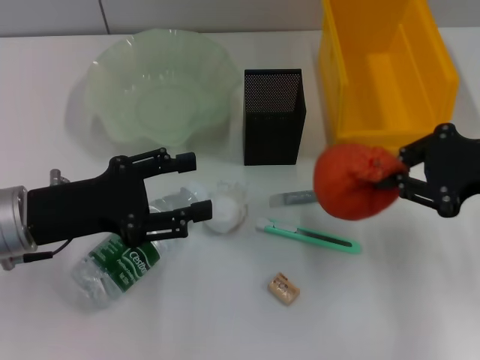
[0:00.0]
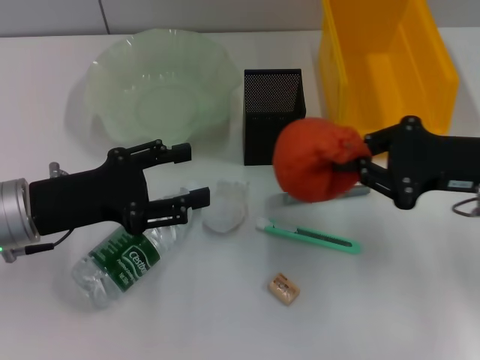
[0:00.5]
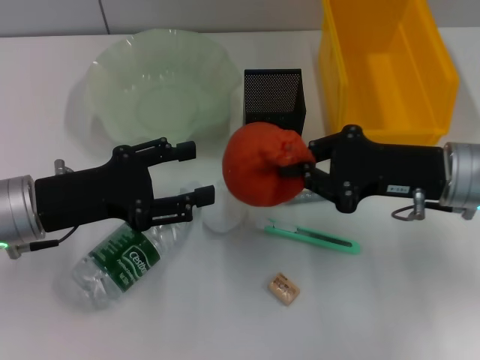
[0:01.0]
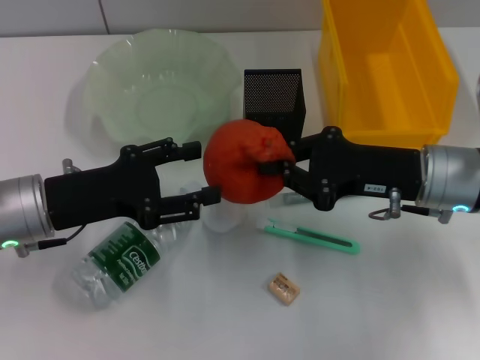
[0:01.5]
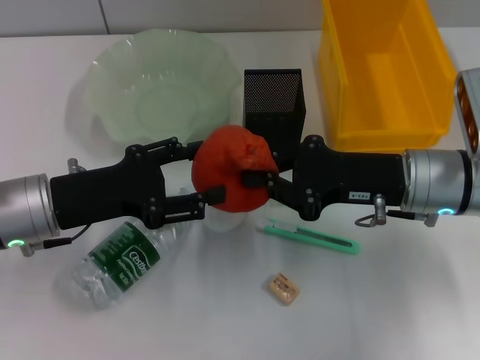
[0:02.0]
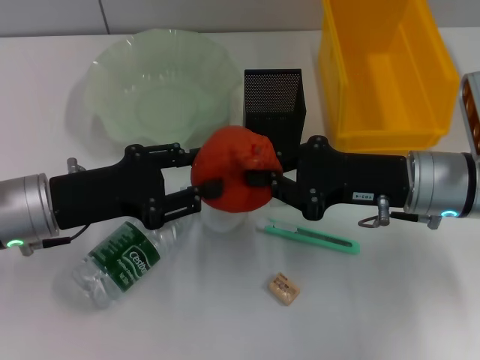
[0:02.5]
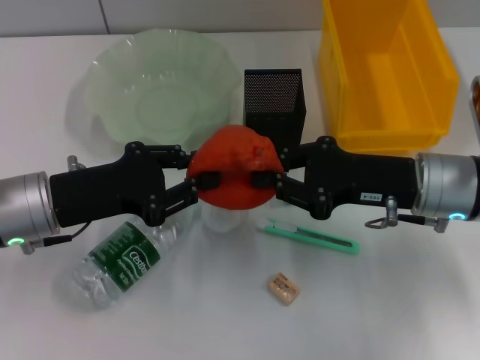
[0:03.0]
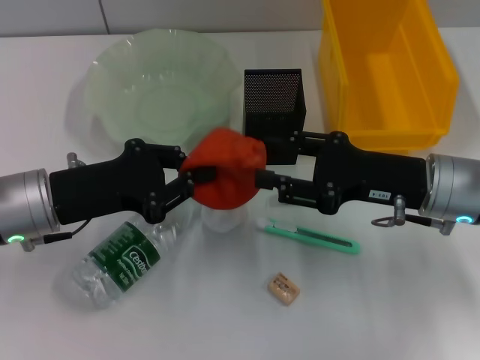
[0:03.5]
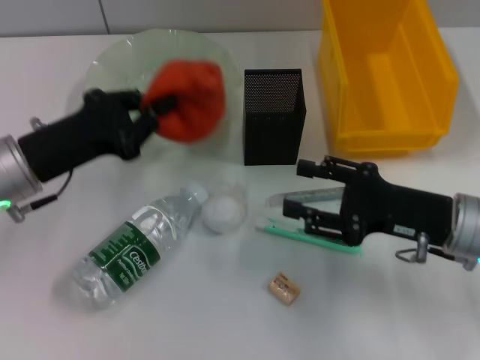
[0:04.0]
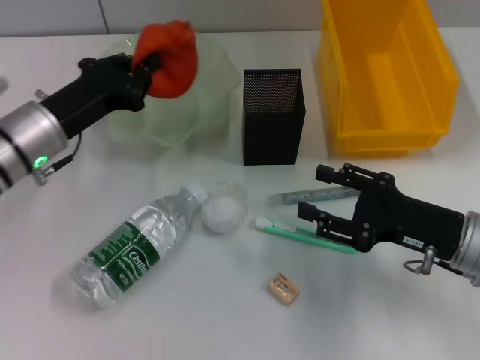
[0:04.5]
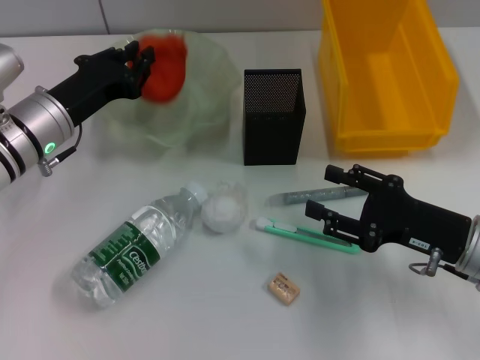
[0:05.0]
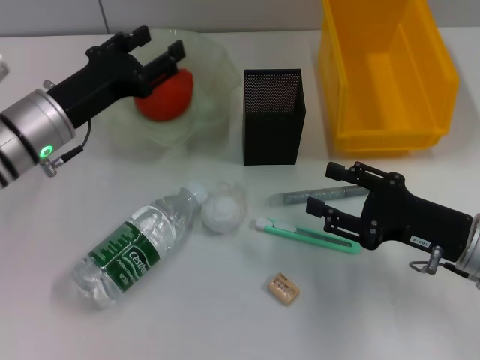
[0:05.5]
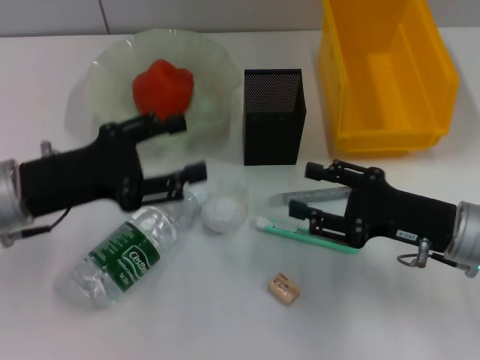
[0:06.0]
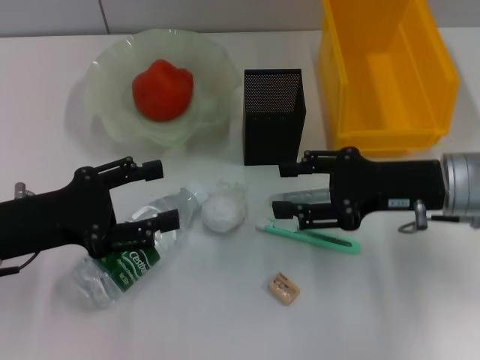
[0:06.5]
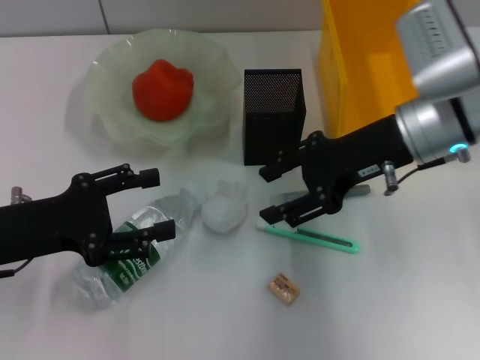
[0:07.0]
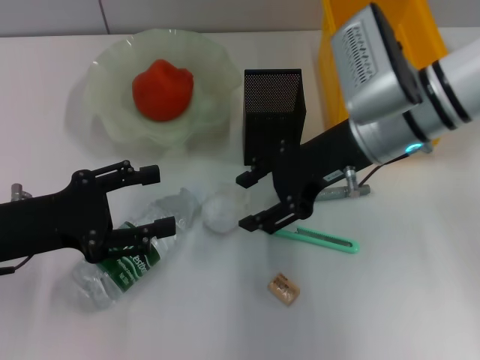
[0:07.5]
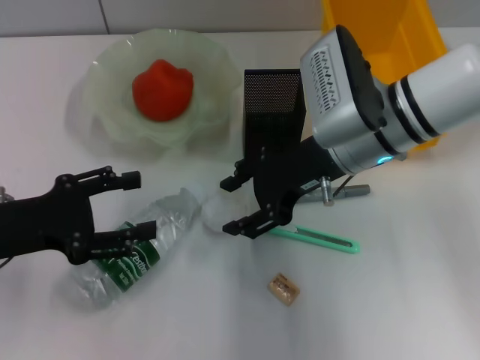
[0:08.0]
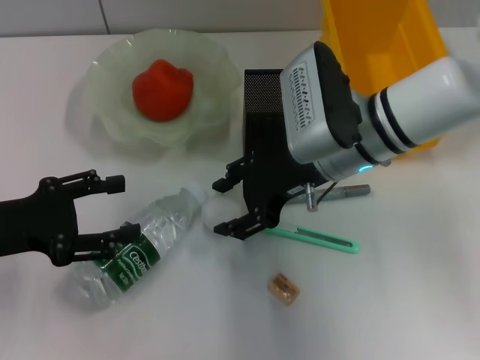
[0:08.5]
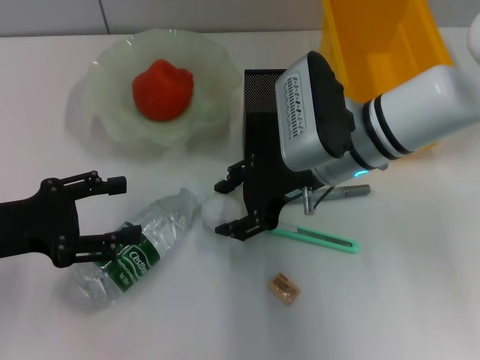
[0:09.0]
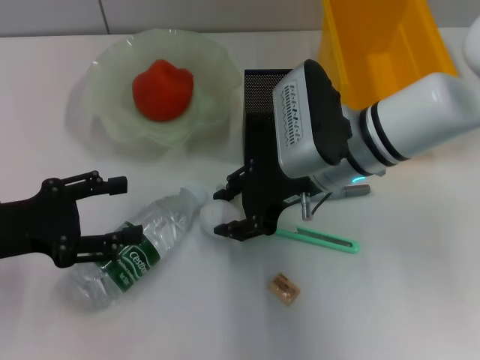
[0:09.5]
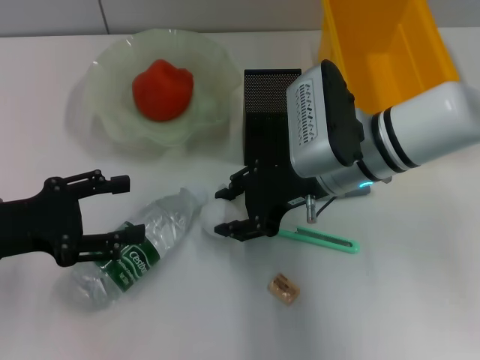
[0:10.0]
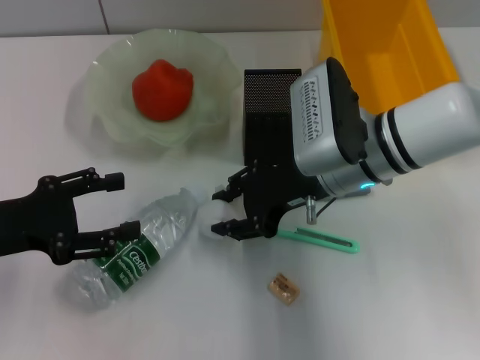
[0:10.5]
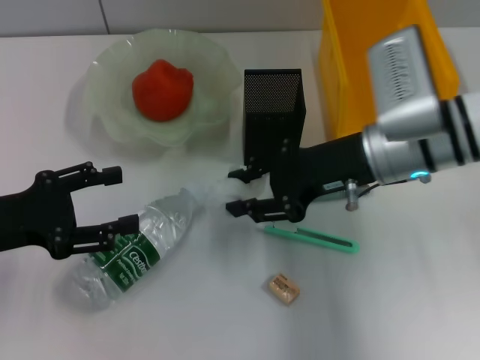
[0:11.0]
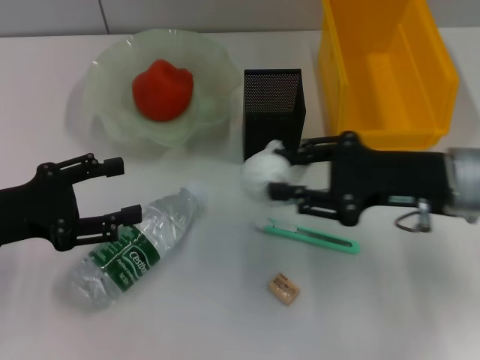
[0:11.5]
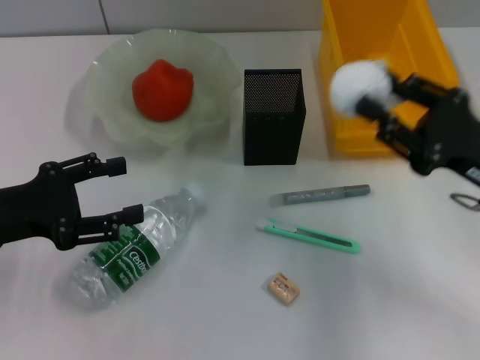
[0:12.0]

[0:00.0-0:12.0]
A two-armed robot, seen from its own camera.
Step, 0:00.0 to 0:03.5: Pass the orange from the right hand to the left hand.
Step, 0:04.0 to 0:05.0: Place the orange into the fruit bowl with the left hand.
Step, 0:05.5 to 0:10.0: Grab the paper ball with the right hand.
0:00.0 to 0:02.0: The right gripper shifts approximately 10 cm to the left and downward.
0:02.0 to 0:04.0: The left gripper closes up; the right gripper moves approximately 5 cm, and opens.
0:04.0 to 0:06.0: The left gripper goes forward and returns, roughly 5 cm each way, and opens its fingers.
0:06.0 to 0:08.0: The right gripper travels to the left, forward and upward by approximately 15 cm. The left gripper ends up approximately 5 cm from where it was.
0:08.0 to 0:10.0: The grippers move only a little.
0:10.0 to 0:12.0: The right gripper is displaced to the right and backward by roughly 20 cm.

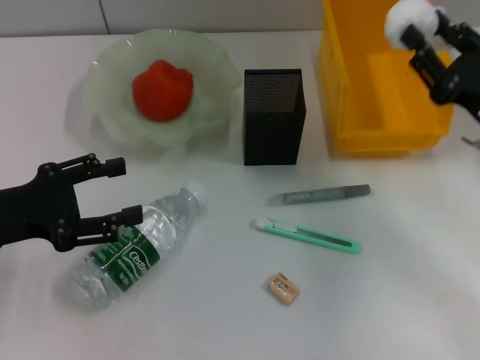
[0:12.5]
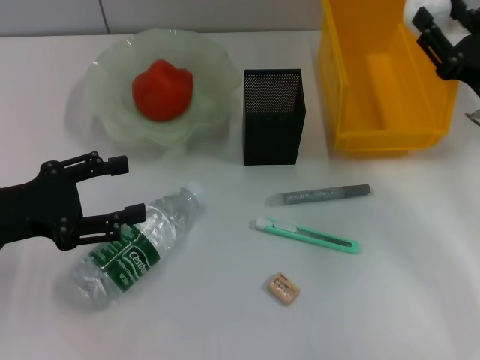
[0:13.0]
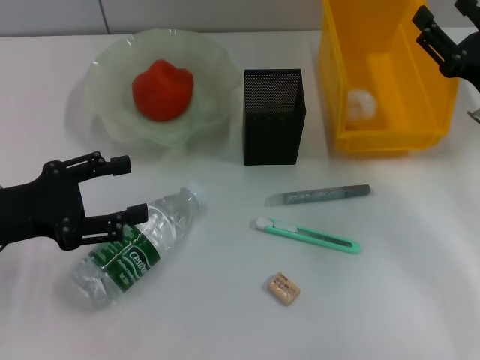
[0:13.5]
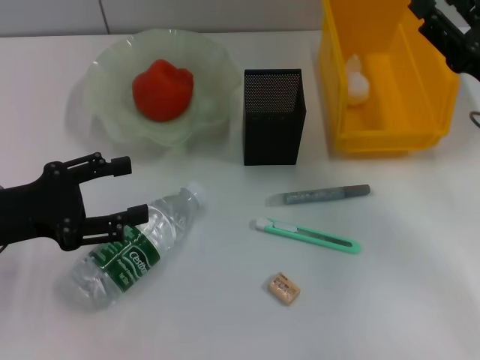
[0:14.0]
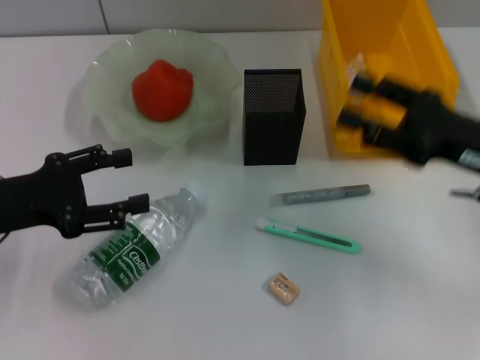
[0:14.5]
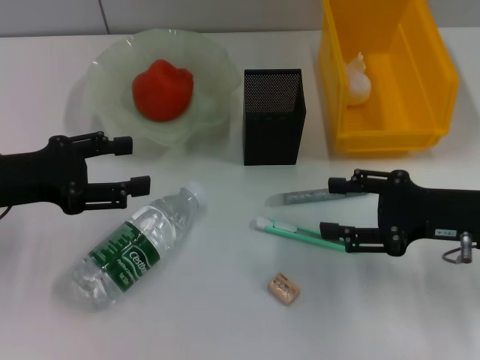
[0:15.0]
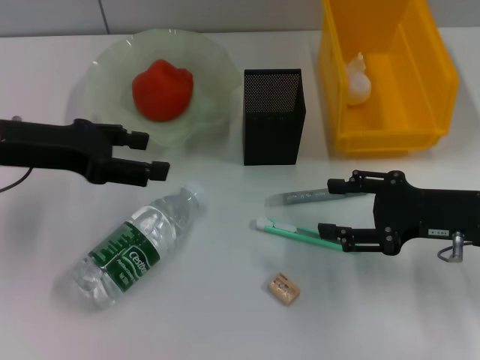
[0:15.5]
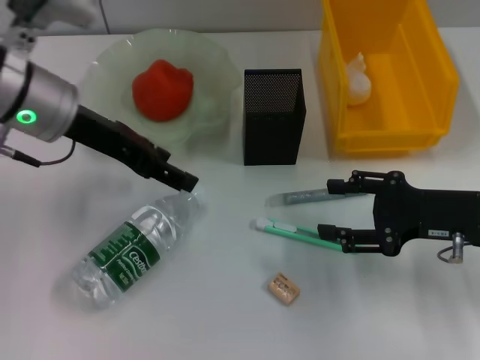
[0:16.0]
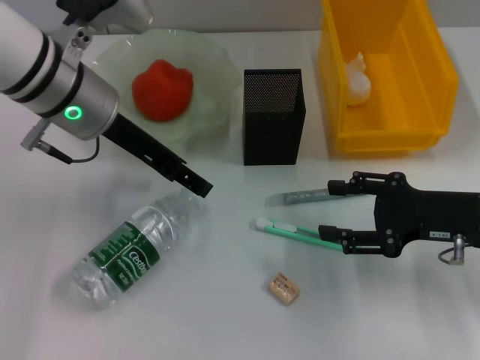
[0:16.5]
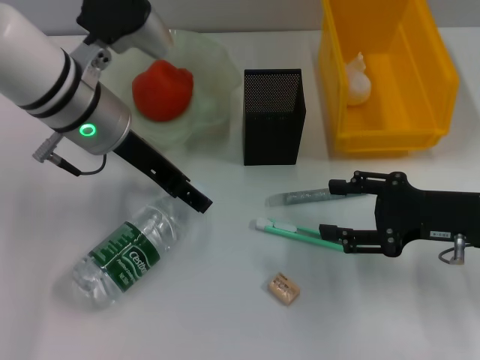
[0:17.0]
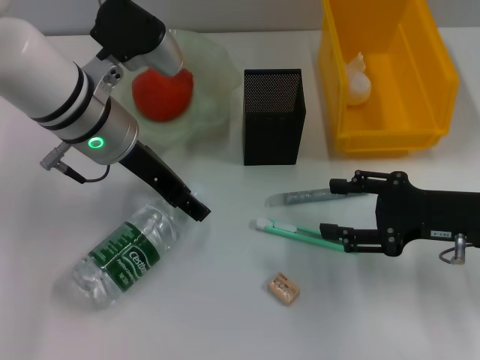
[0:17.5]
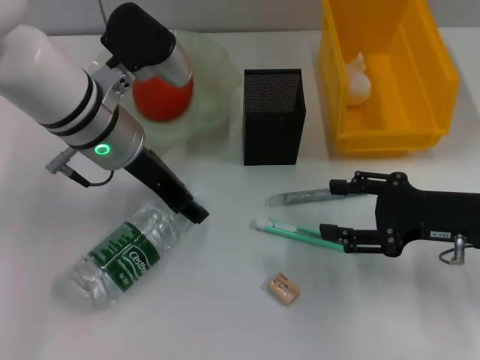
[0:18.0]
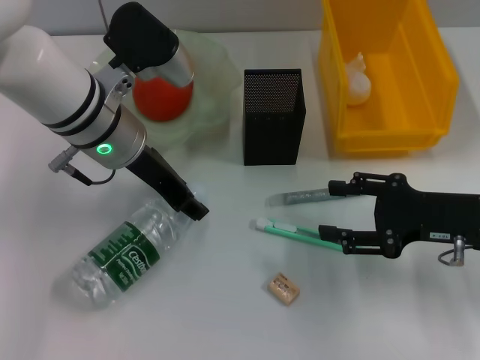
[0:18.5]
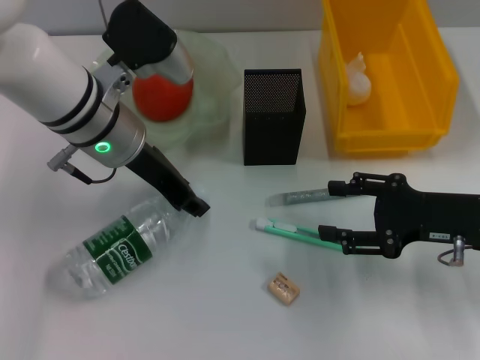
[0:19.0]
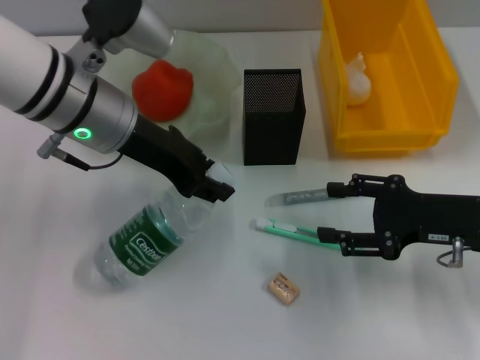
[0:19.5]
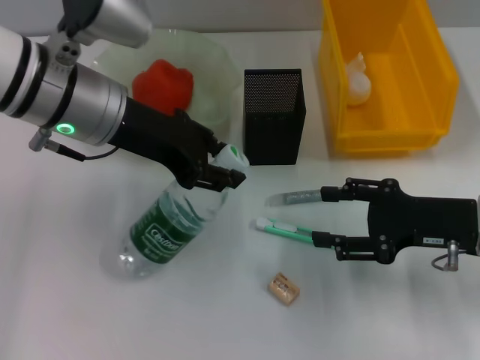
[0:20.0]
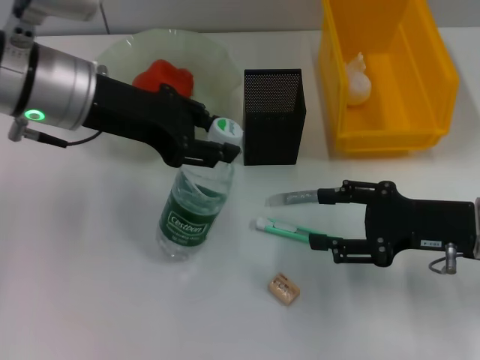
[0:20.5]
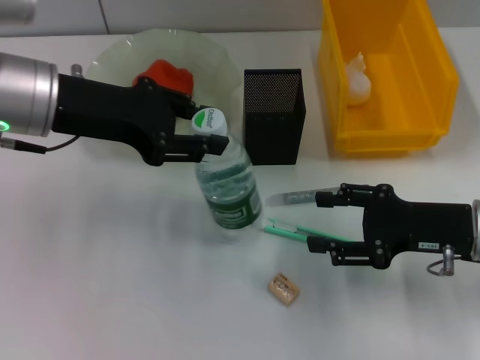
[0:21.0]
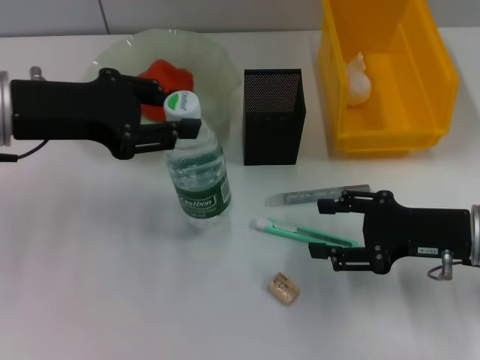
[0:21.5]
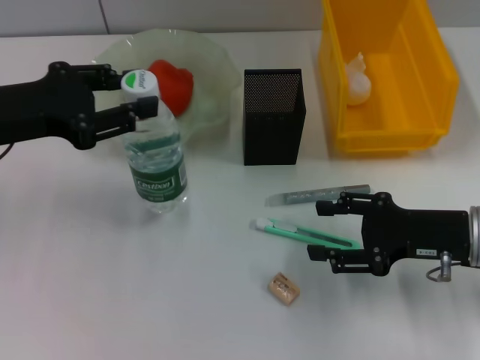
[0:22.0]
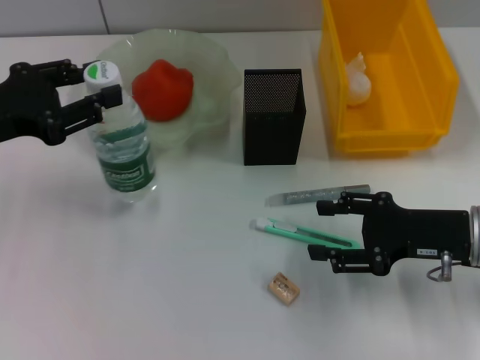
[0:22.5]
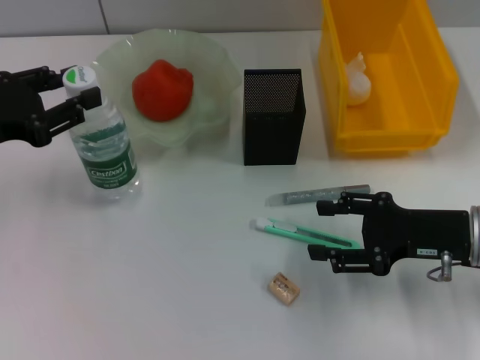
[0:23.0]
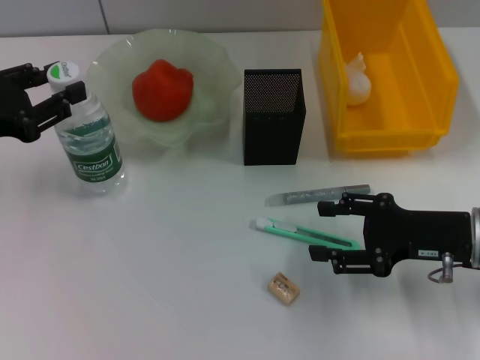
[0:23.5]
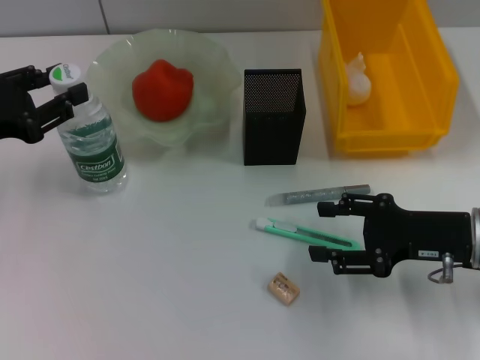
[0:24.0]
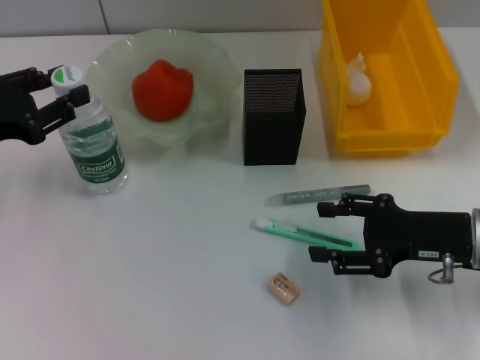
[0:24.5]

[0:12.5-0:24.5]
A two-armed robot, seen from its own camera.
Step, 0:14.0 to 0:18.5: Grab the water bottle with the left hand.
0:12.5 to 0:14.5: The right gripper opens.
0:14.5 to 0:16.5: The left gripper heads to the right, forward and upward, covering approximately 20 cm.
0:16.5 to 0:18.5: There are only small adjustments of the grippers.
0:18.5 to 0:20.5: The left gripper goes roughly 5 cm upward.
0:20.5 to 0:22.5: The left gripper goes some 10 cm to the left.
0:22.5 to 0:24.5: The grippers stay close to where they were, moving slightly.

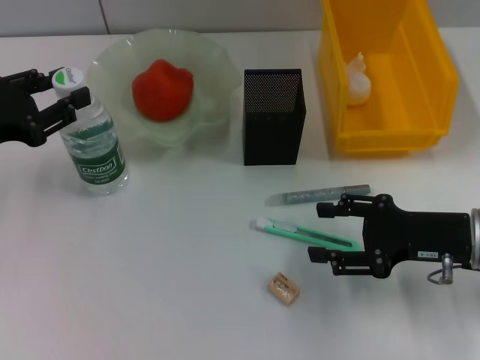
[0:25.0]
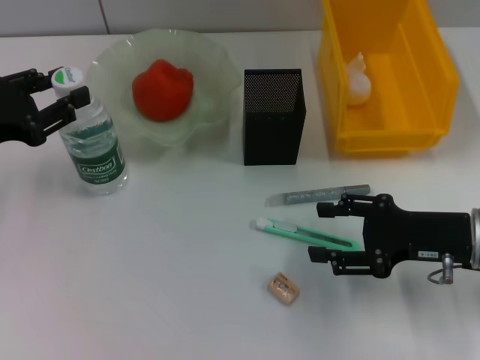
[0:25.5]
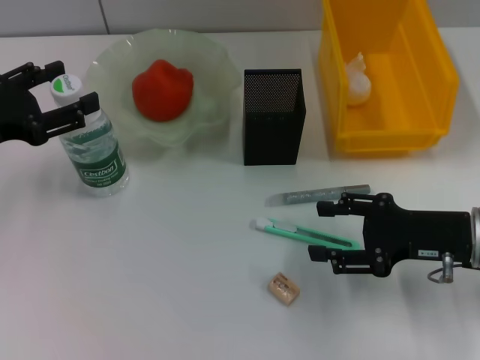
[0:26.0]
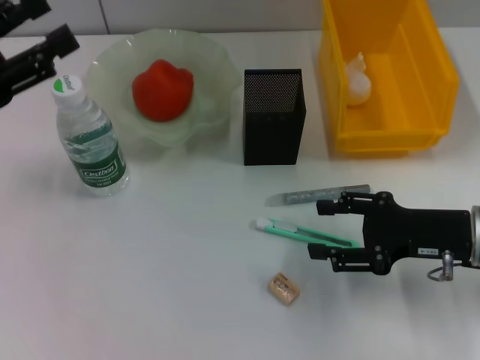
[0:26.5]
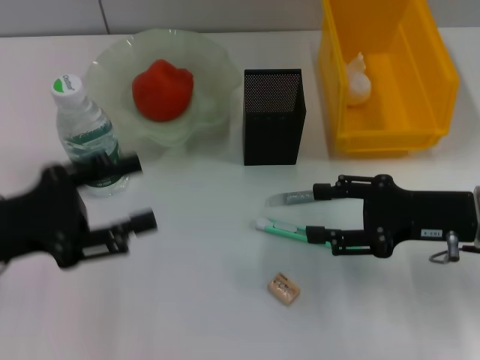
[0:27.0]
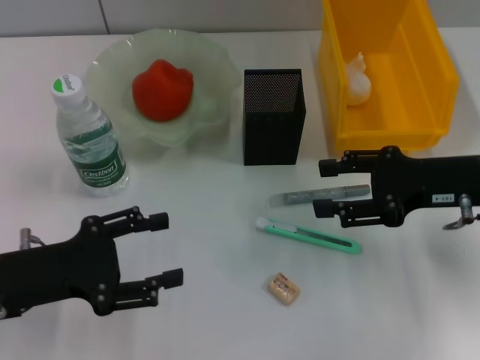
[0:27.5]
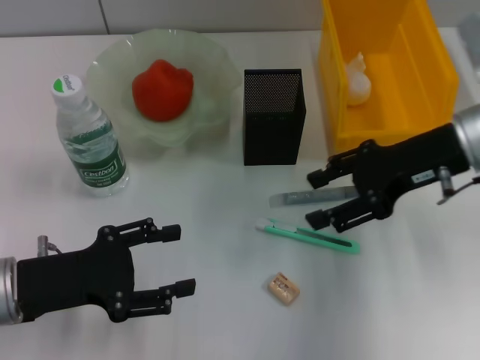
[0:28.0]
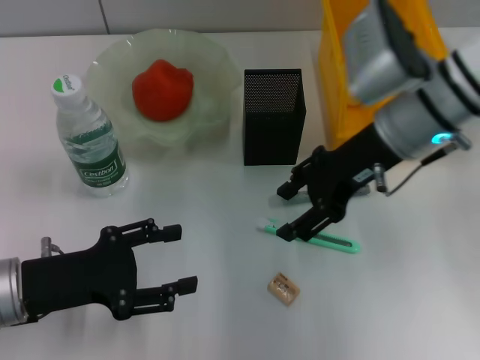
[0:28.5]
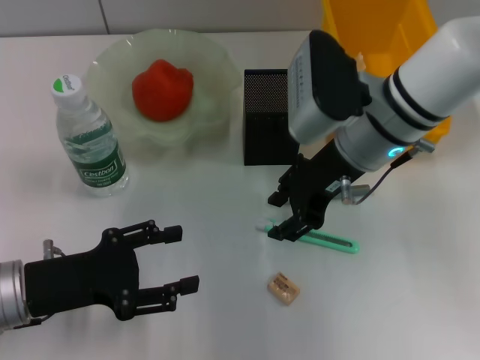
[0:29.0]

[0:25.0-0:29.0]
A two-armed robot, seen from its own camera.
0:25.0 to 0:27.0: The left gripper moves backward, approximately 5 cm, and opens its fingers.
0:27.0 to 0:29.0: The right gripper travels to the left, forward and upward by about 15 cm. The left gripper shifts about 5 cm downward.
